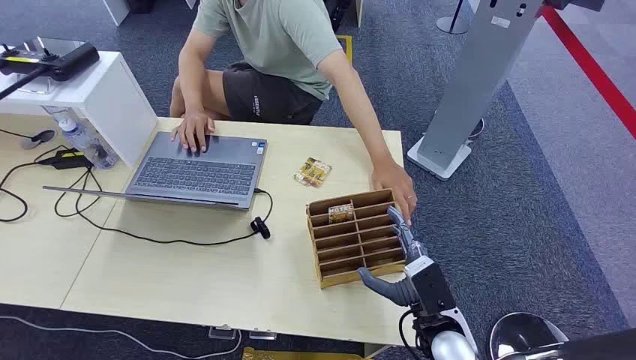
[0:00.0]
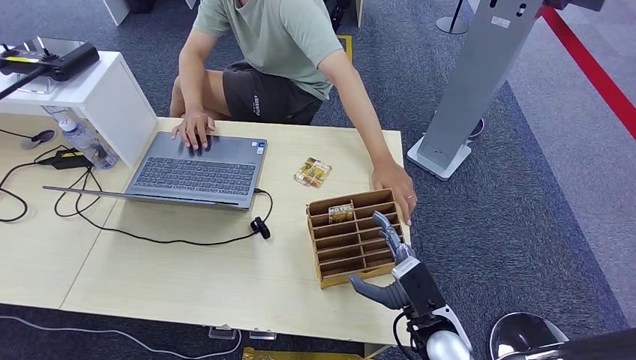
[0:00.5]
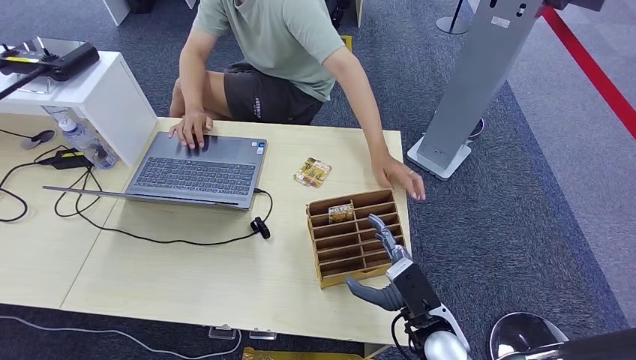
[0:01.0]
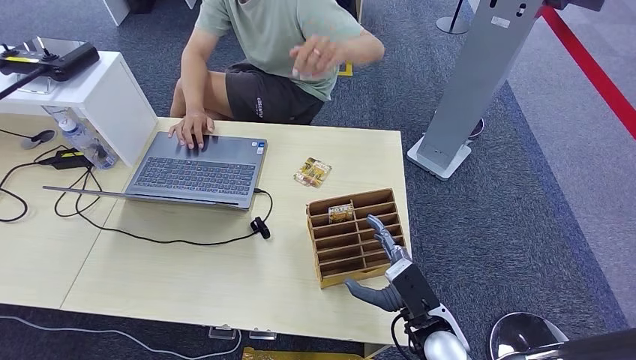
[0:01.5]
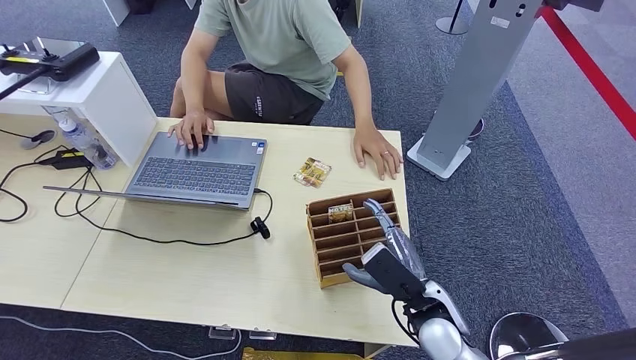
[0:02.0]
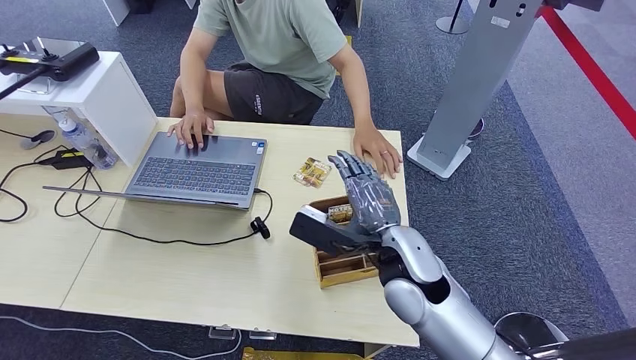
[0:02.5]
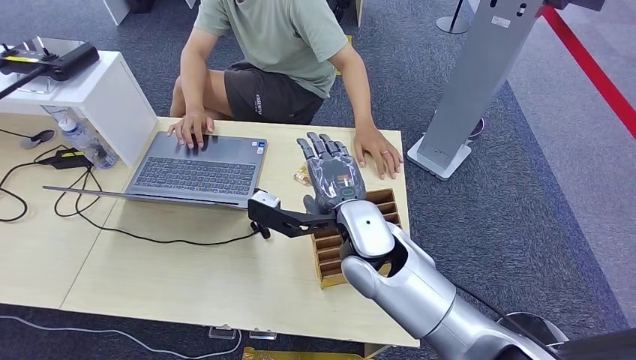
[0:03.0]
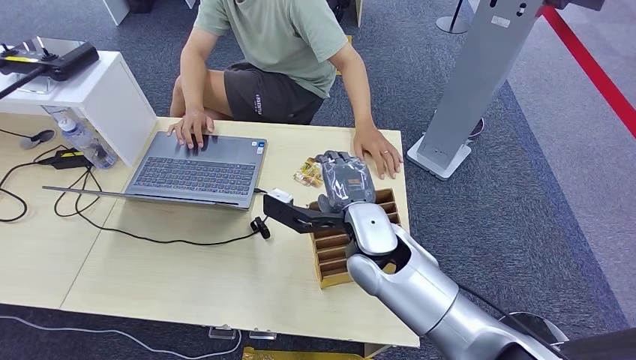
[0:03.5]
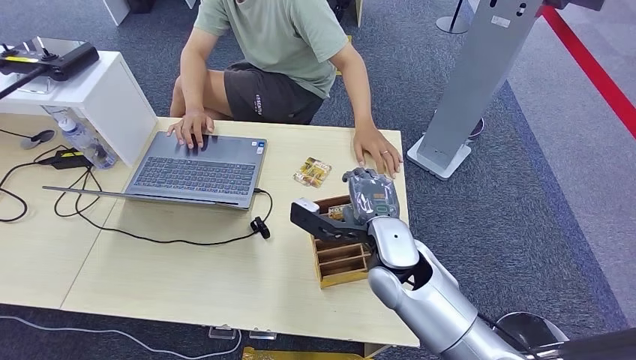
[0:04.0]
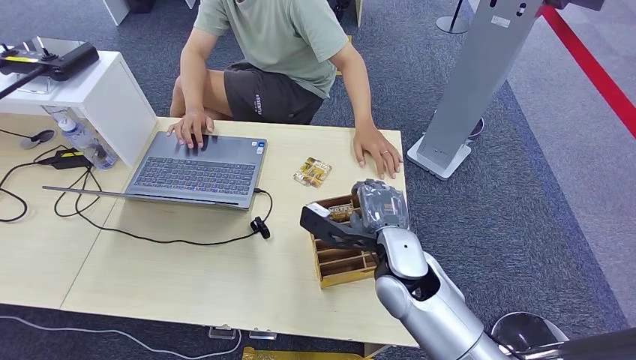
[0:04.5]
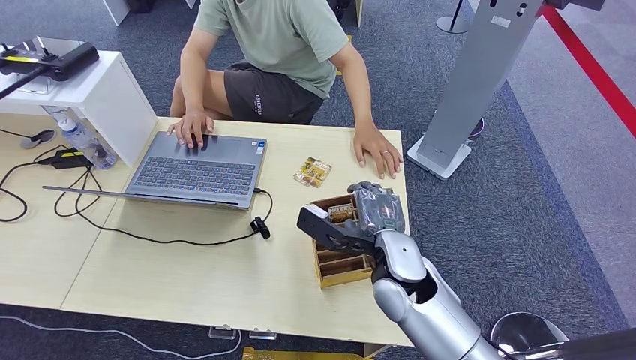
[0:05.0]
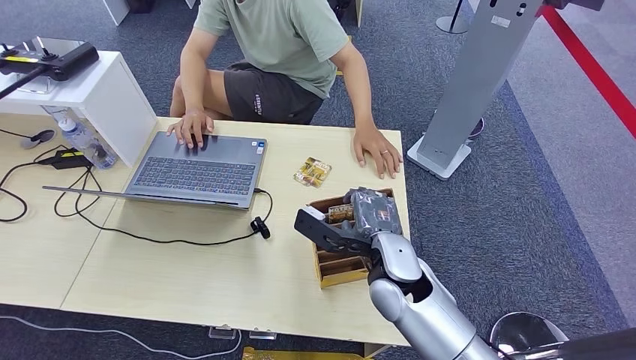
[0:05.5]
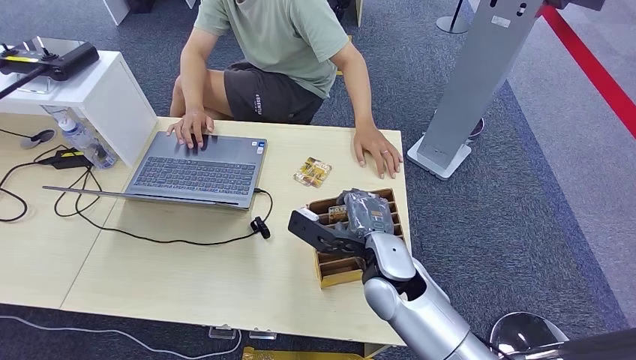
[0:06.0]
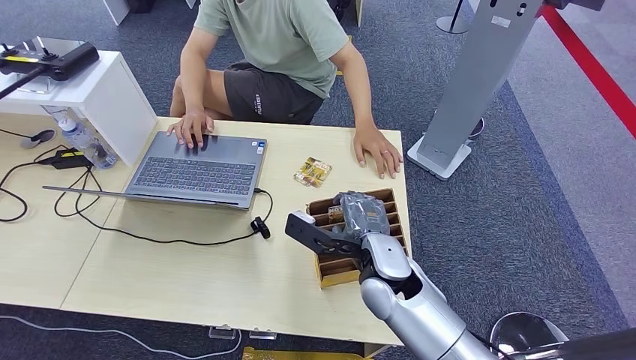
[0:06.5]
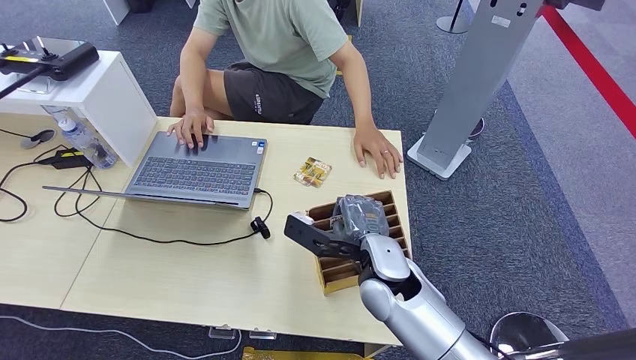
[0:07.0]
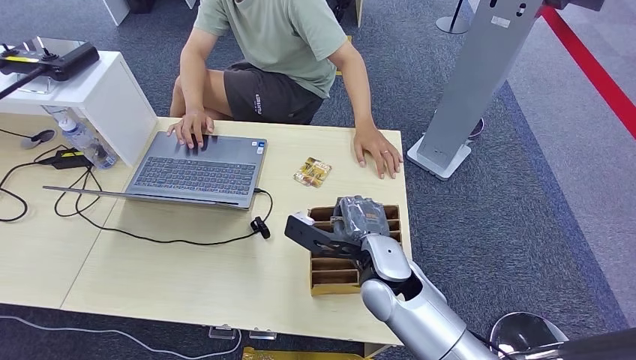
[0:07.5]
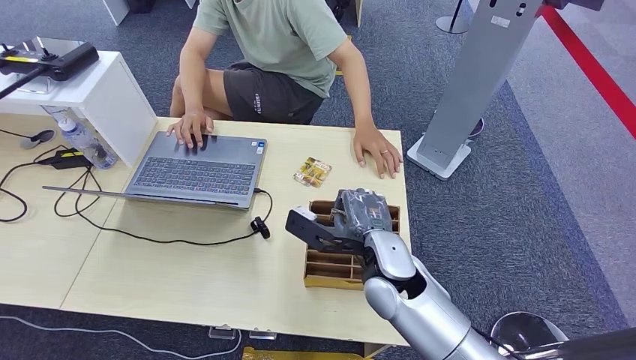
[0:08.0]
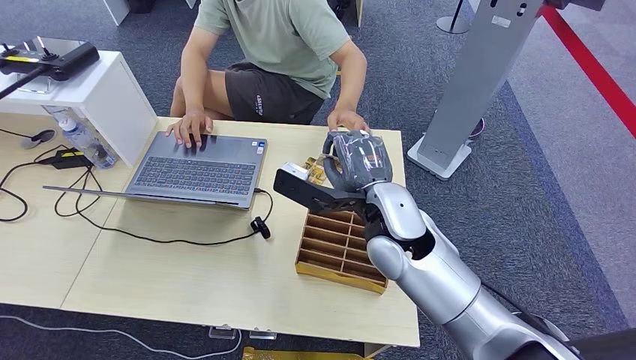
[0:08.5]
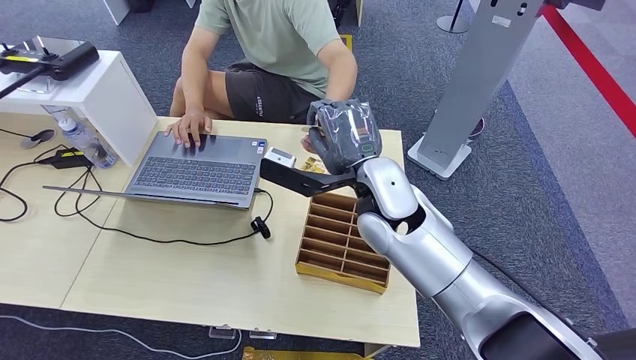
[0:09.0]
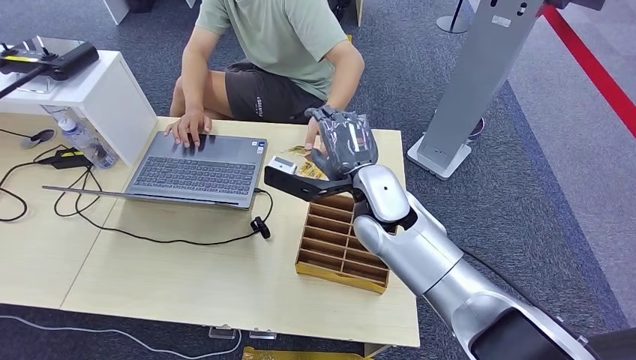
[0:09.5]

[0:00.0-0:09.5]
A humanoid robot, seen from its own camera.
Step, 0:00.0 to 0:08.5: Pick up the room card from the card holder.
Step, 0:09.0 to 0:09.5: Hand the room card to the target.
0:02.0 to 0:04.0: The right hand travels upward, to the left and forward by some 15 cm.
0:04.0 to 0:07.5: The hands stay close to where they were, moving slightly.
0:07.5 to 0:09.5: The right hand travels upward and forward by about 10 cm.

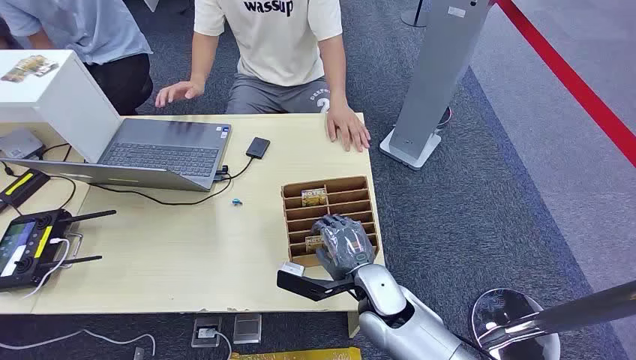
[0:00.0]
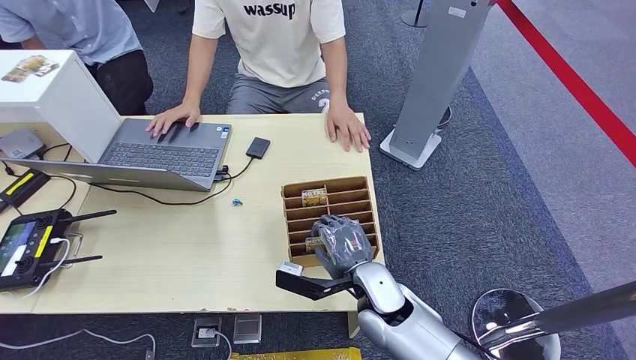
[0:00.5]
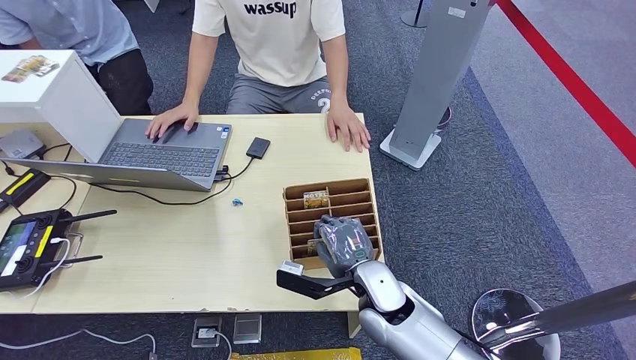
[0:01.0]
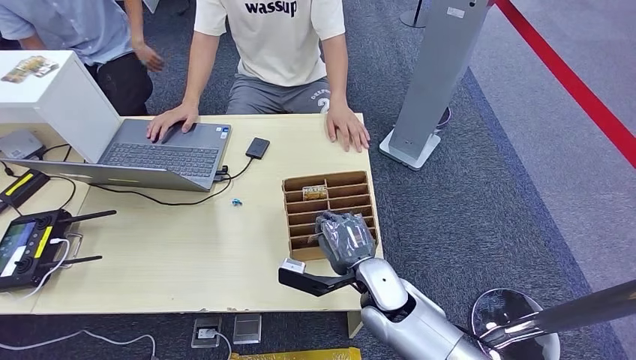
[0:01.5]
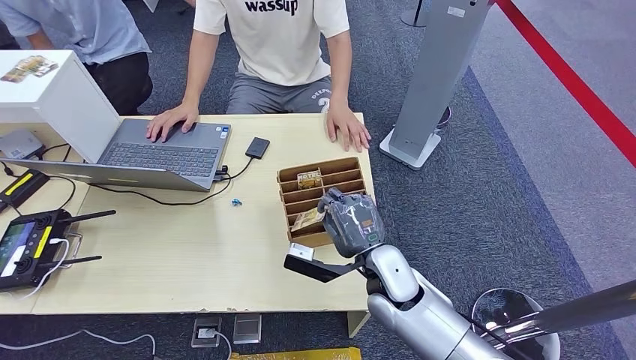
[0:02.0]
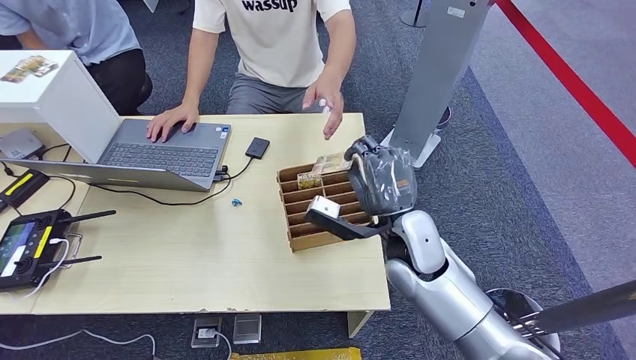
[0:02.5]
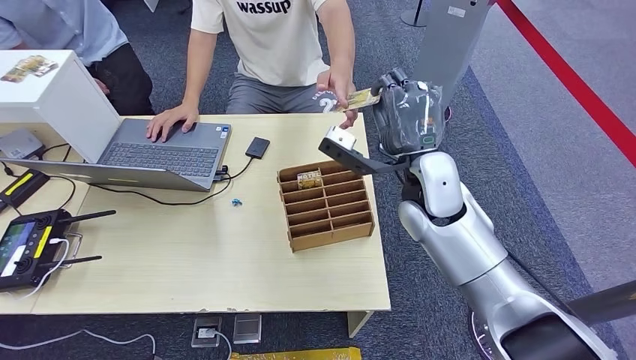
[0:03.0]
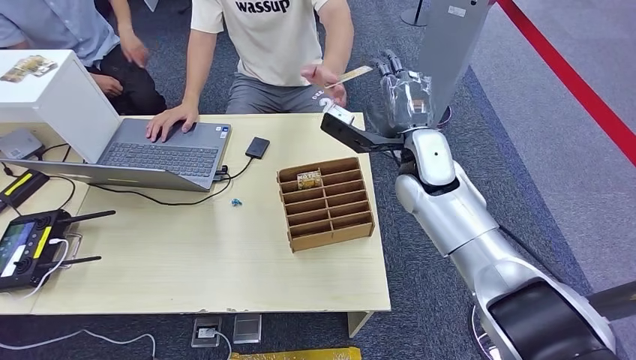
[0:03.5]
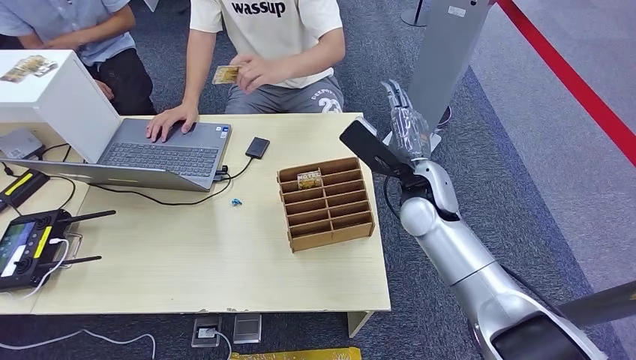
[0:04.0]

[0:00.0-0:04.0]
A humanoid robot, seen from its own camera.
Step, 0:00.0 to 0:02.0: Pick up the room card from the card holder.
Step, 0:02.5 to 0:04.0: Hand the room card to the target.
0:02.0 to 0:04.0: The right hand moves forward, upward and to the right, some 15 cm.
